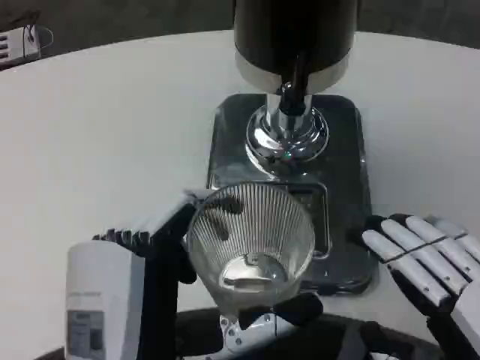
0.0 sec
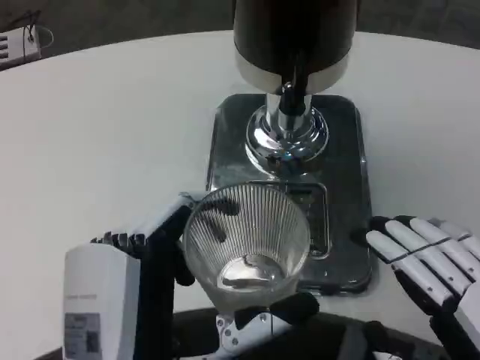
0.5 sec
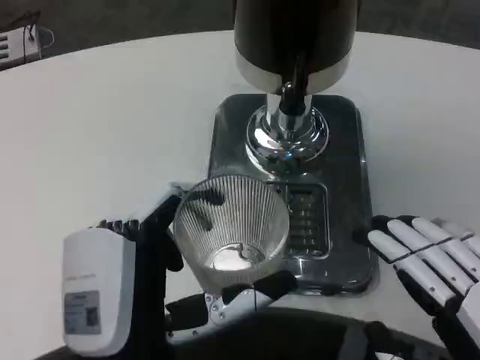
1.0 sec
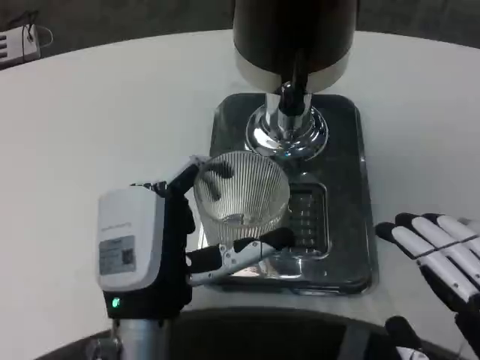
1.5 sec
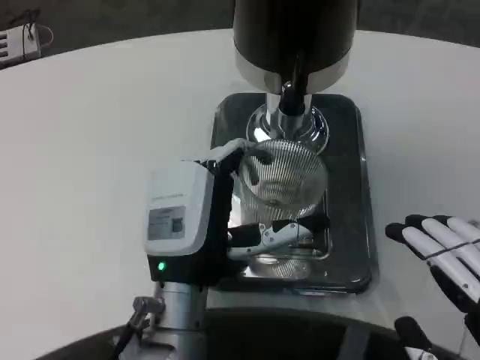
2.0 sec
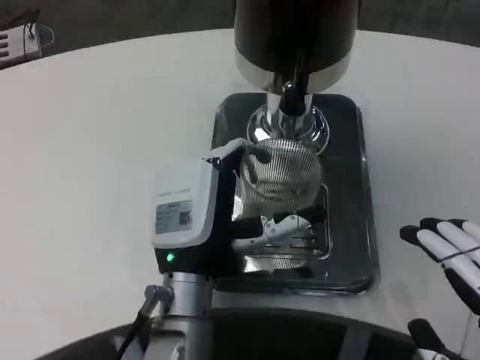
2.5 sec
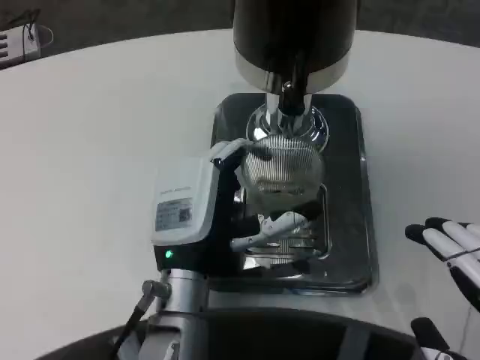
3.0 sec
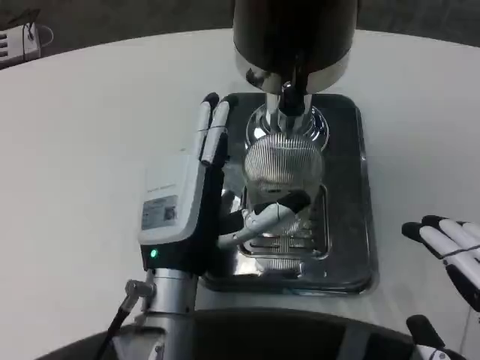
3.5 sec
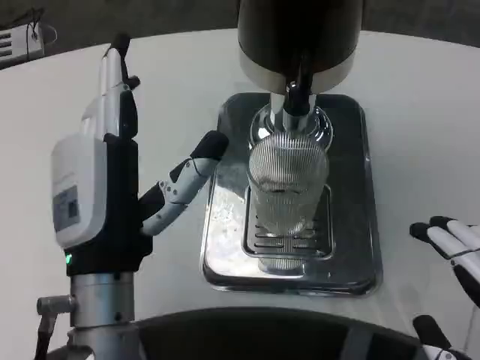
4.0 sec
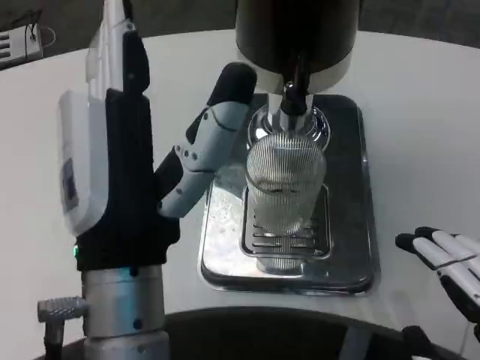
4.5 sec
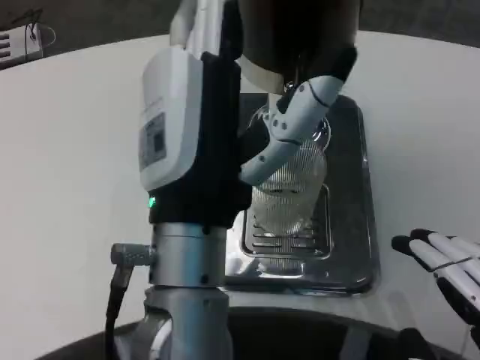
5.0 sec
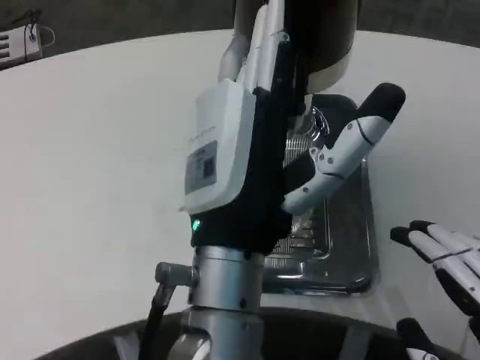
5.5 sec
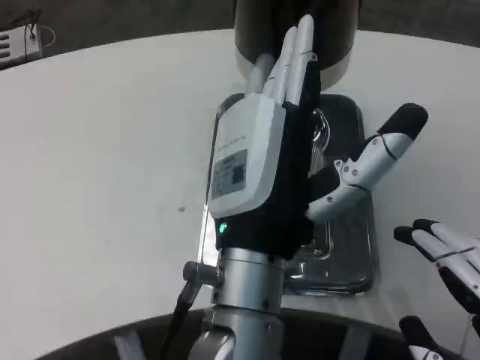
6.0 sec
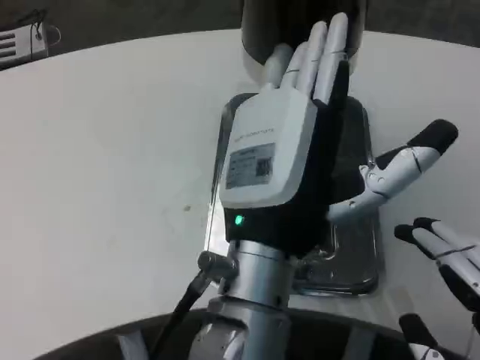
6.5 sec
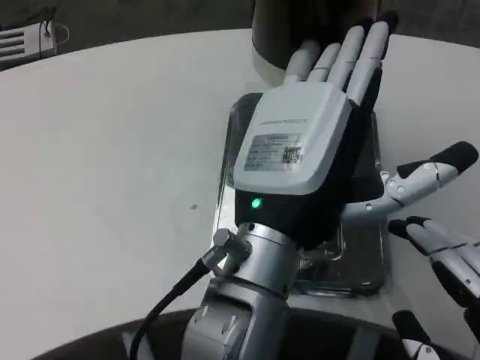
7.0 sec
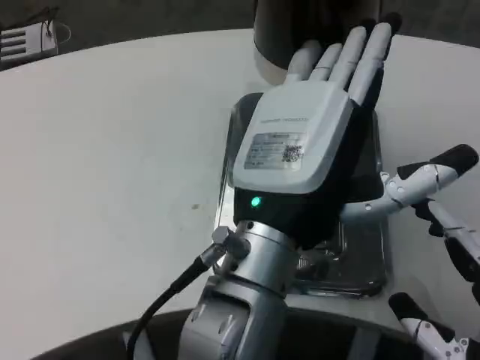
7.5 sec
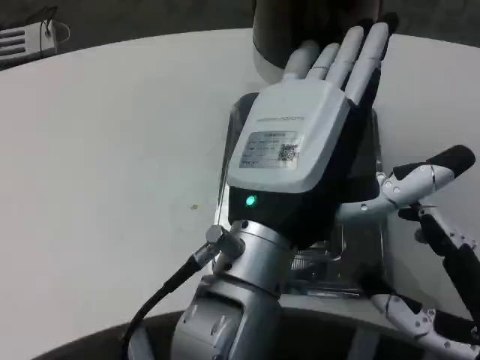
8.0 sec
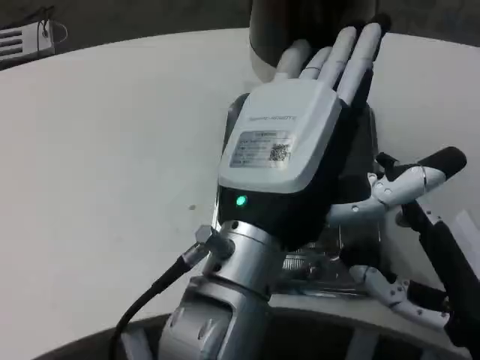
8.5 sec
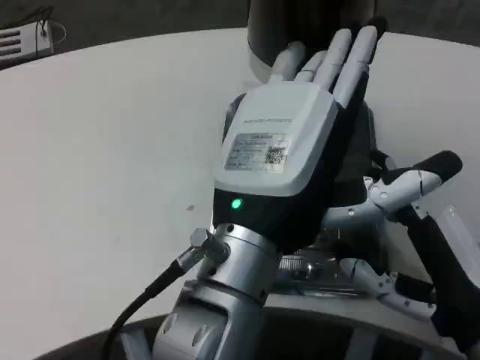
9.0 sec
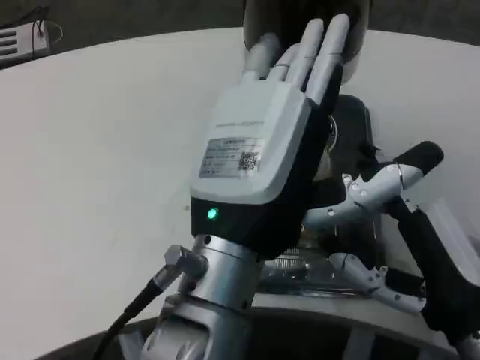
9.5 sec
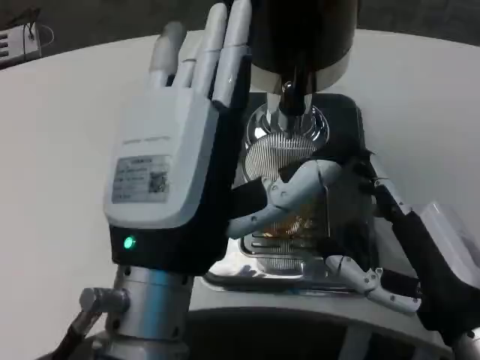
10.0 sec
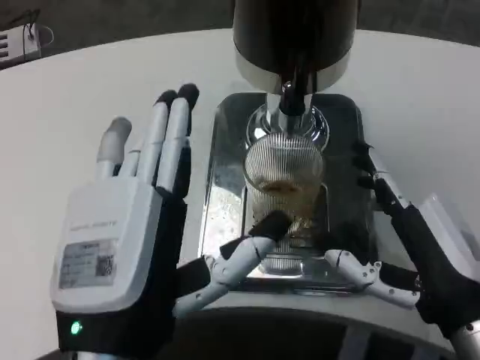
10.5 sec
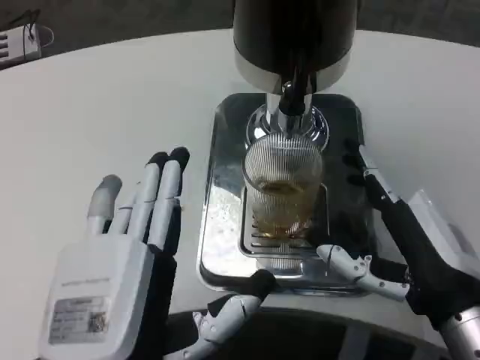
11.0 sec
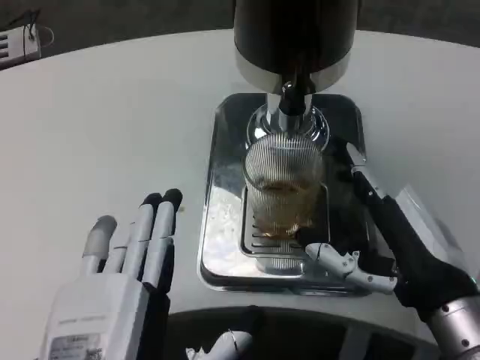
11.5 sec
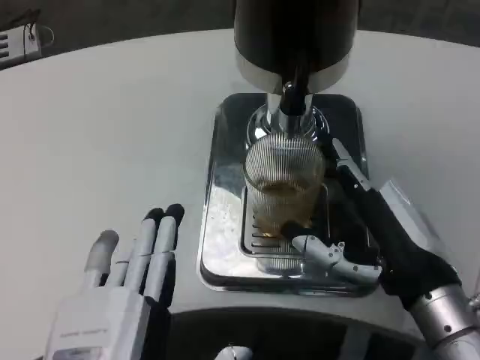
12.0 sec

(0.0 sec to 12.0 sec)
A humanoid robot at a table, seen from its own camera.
Task of the whole recording: Grasp the cup under the faucet to collect the drink, then remove the cup.
0.0 sec - 2.0 sec: The left hand is displaced forward by about 15 cm.
2.0 sec - 4.0 sec: The left hand ends up some 10 cm from where it was.
4.0 sec - 6.0 sec: The left hand moves to the right, approximately 10 cm.
6.0 sec - 8.0 sec: The right hand goes some 5 cm forward.
8.0 sec - 10.0 sec: The right hand moves roughly 5 cm; the left hand is displaced to the left by some 5 cm.
10.0 sec - 12.0 sec: The left hand is displaced downward and backward by roughly 10 cm.

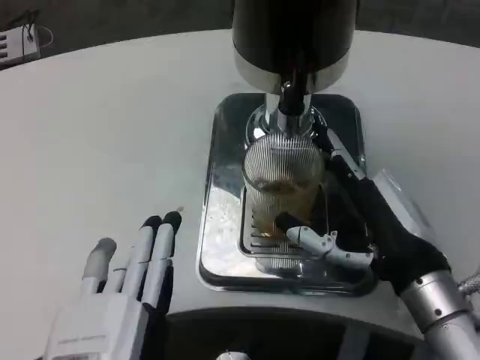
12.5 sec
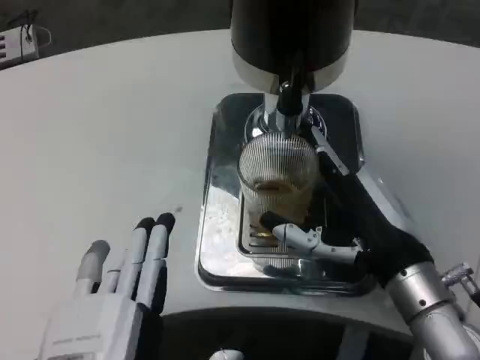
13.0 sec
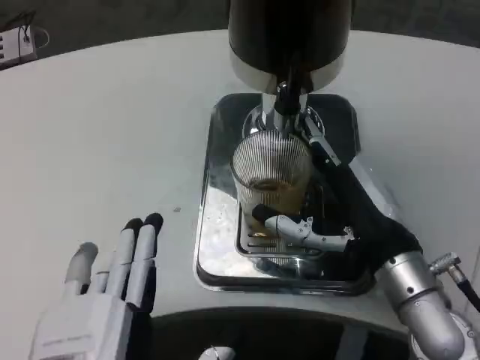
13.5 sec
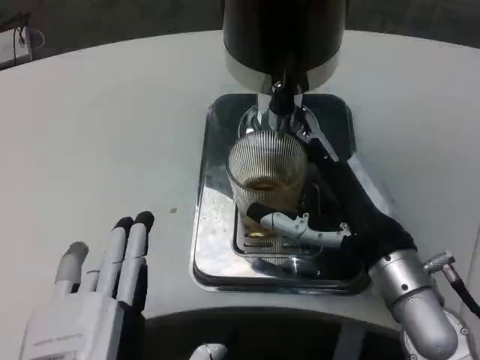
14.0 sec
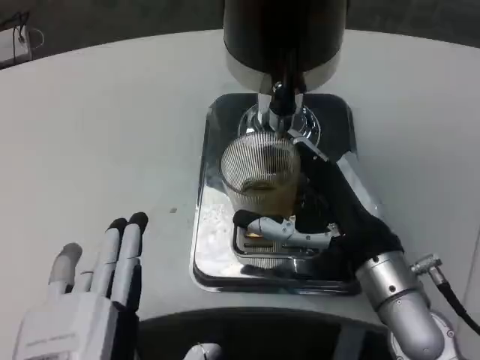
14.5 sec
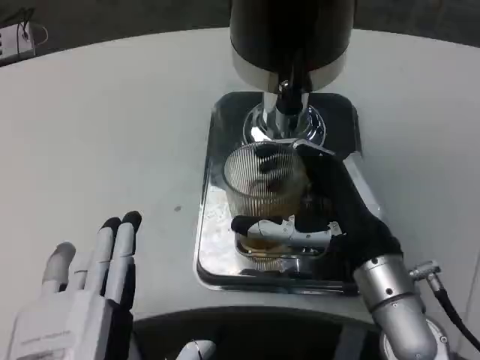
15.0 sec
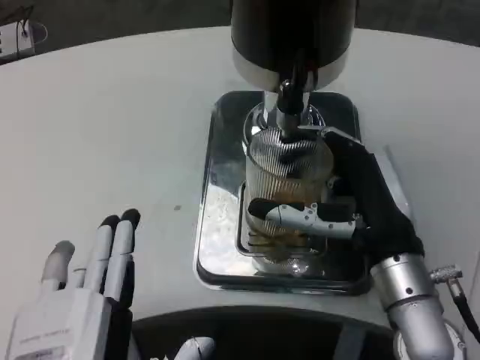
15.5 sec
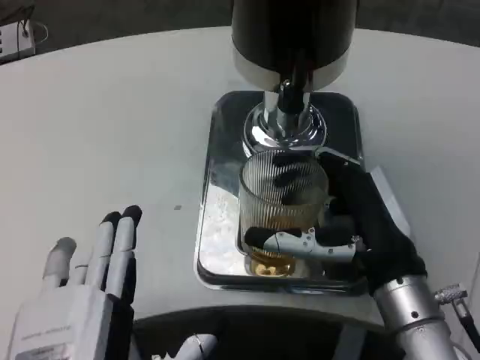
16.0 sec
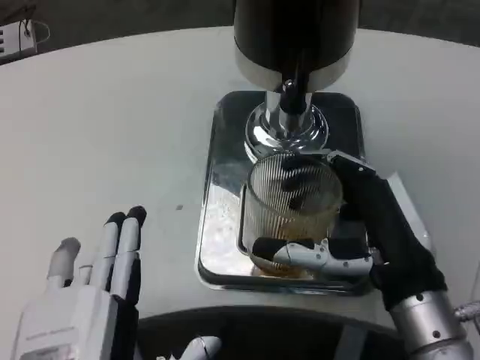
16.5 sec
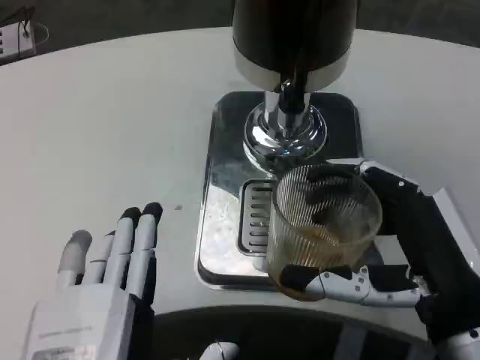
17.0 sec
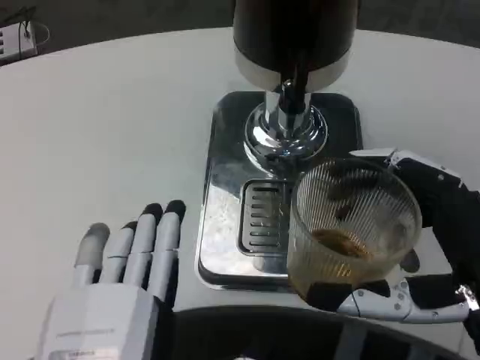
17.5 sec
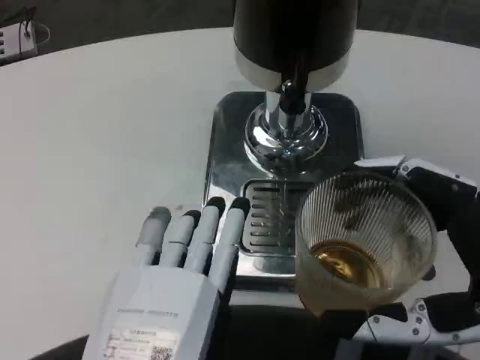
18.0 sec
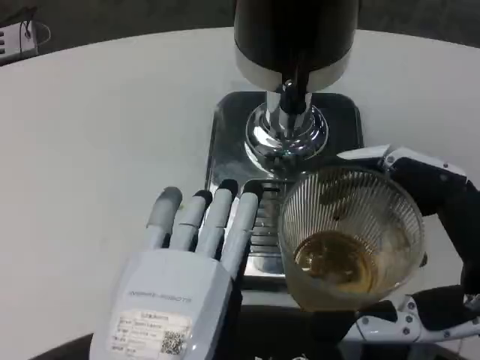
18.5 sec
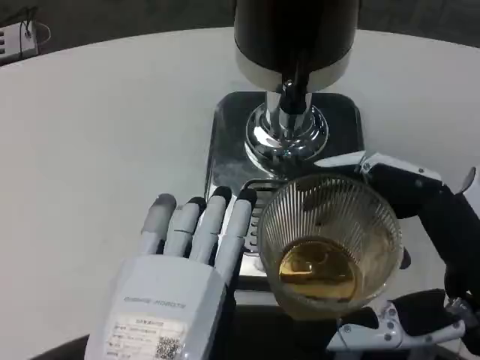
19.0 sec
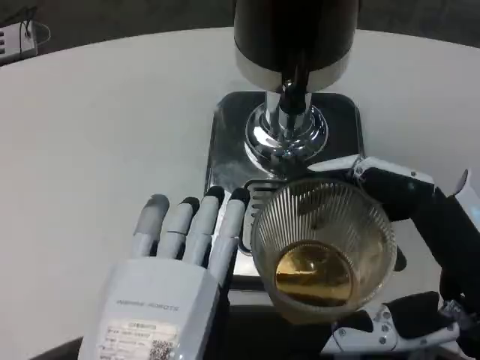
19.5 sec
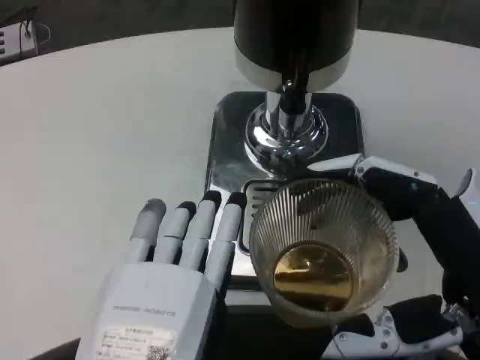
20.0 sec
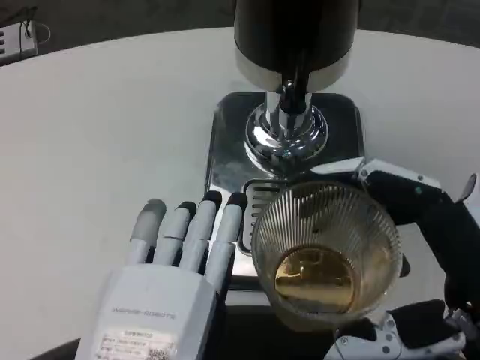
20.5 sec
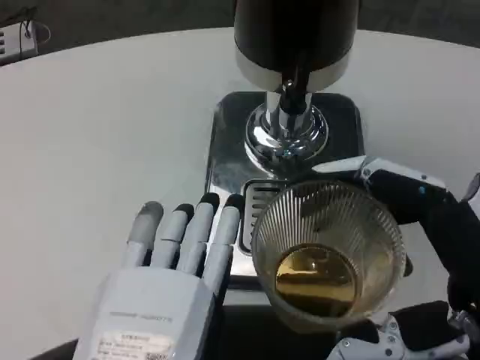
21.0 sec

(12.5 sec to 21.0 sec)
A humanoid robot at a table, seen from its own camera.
Task of the whole recording: Grasp the cup under the faucet to collect the drink, then remove the cup.
14.5 sec - 16.5 sec: The right hand is displaced backward by approximately 5 cm.
16.5 sec - 19.0 sec: The right hand goes some 5 cm backward.
19.0 sec - 21.0 sec: Neither hand changes place.

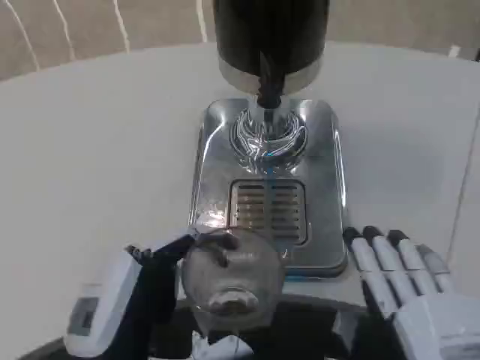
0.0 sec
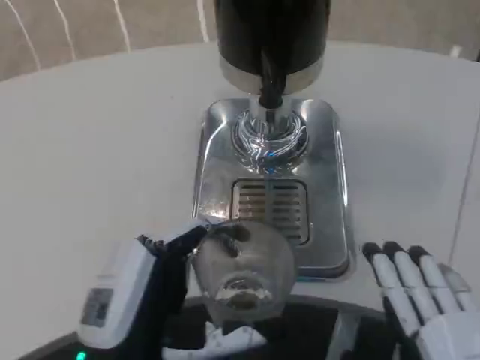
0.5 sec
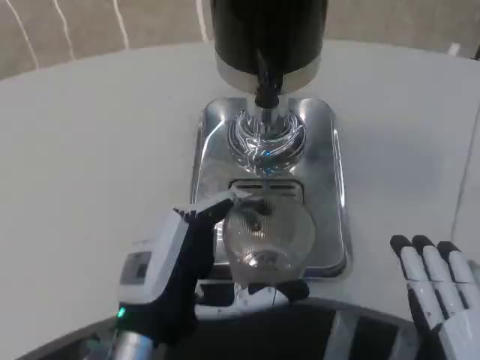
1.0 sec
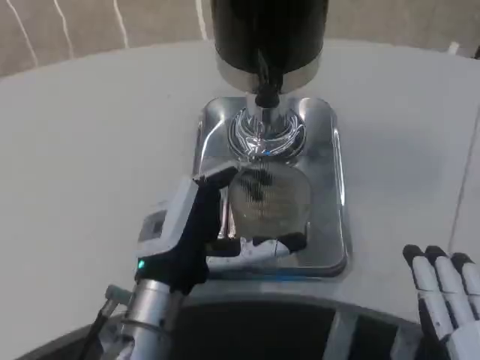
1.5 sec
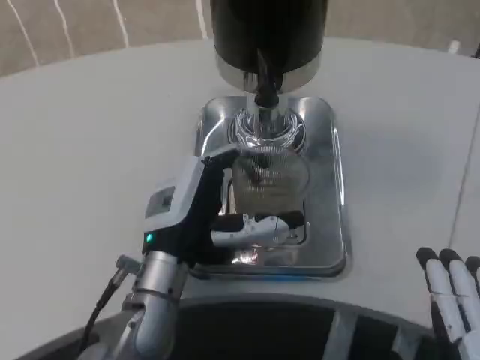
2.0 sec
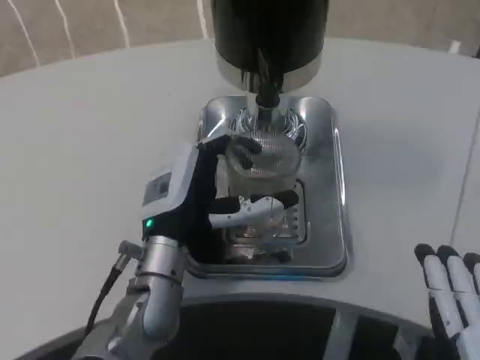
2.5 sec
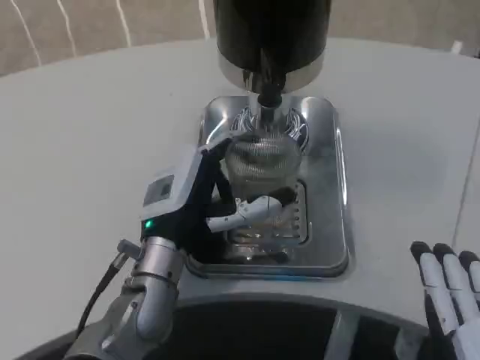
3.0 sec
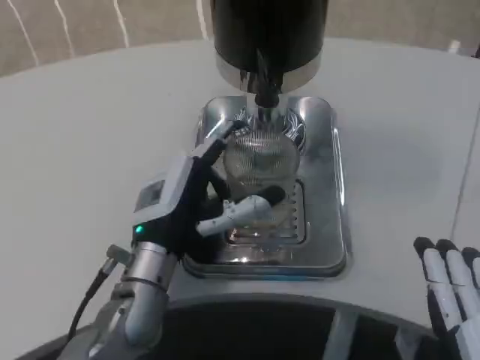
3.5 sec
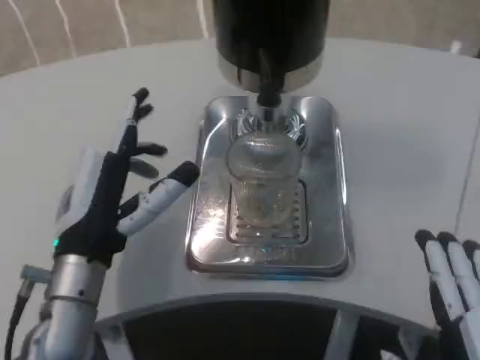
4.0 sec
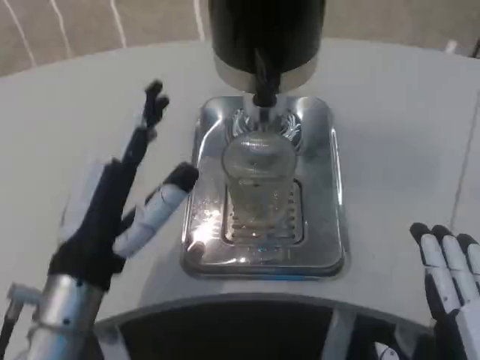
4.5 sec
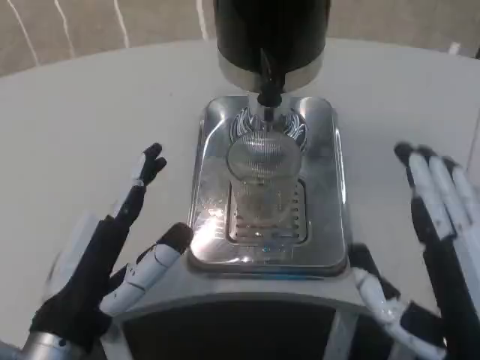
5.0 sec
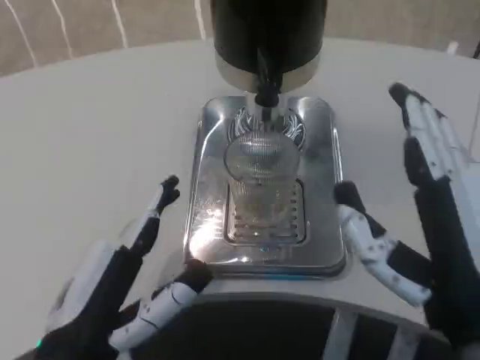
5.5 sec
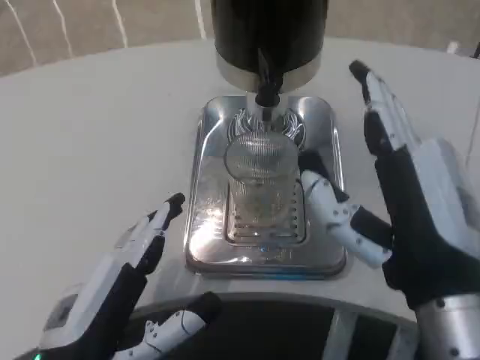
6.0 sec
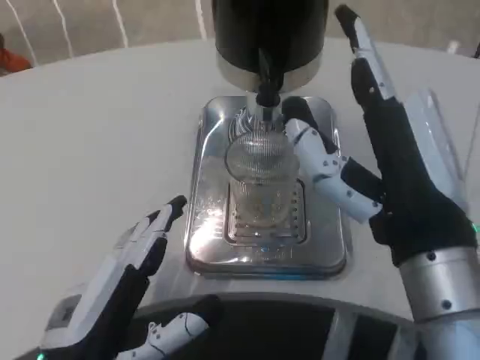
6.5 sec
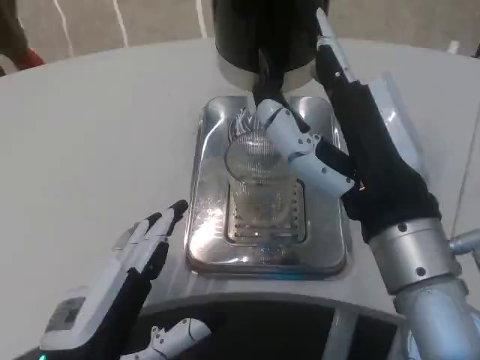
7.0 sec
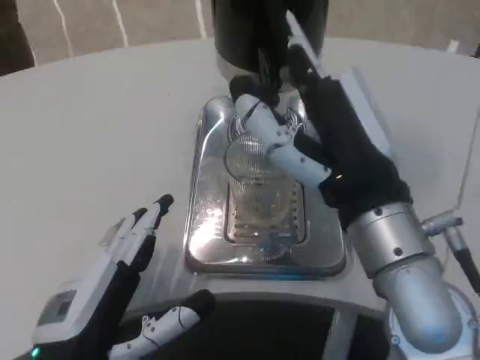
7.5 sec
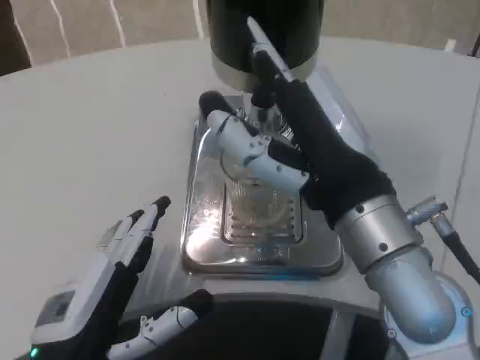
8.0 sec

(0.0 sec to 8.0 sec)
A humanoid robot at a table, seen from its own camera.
Task of the whole recording: Grasp the cup under the faucet to collect the drink, then remove the cup.
0.0 sec - 2.0 sec: The left hand moves forward, roughly 15 cm.
2.0 sec - 4.0 sec: The left hand moves to the left, about 5 cm.
4.0 sec - 6.0 sec: The left hand heads backward, covering roughly 10 cm. Meanwhile the right hand heads forward and upward, covering some 10 cm.
6.0 sec - 8.0 sec: The right hand is displaced forward by about 5 cm.
